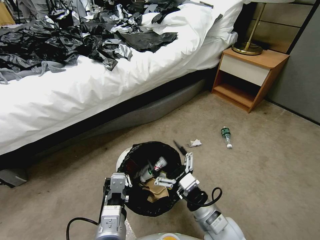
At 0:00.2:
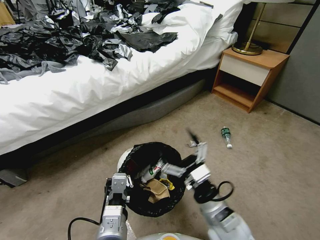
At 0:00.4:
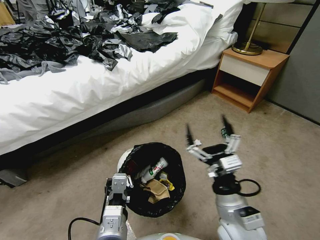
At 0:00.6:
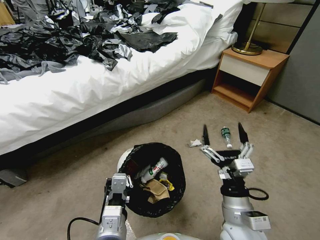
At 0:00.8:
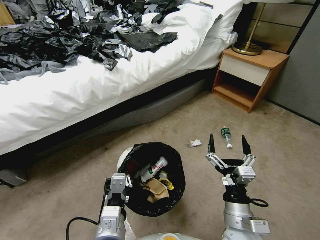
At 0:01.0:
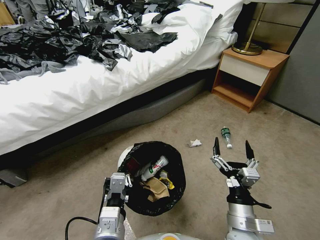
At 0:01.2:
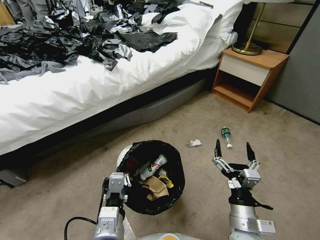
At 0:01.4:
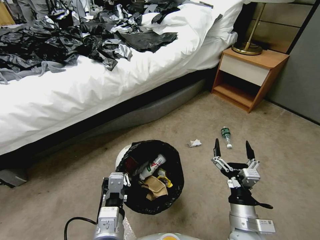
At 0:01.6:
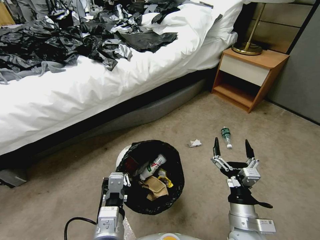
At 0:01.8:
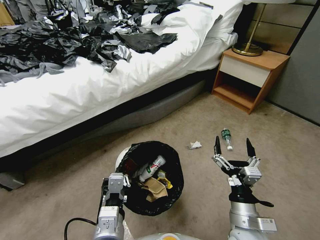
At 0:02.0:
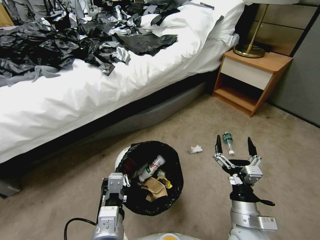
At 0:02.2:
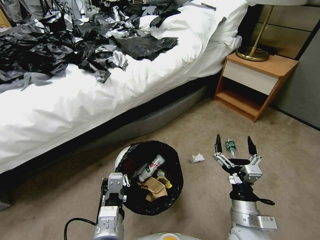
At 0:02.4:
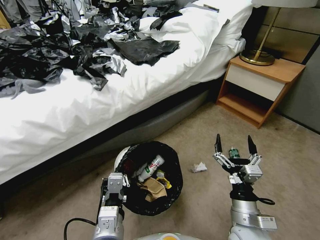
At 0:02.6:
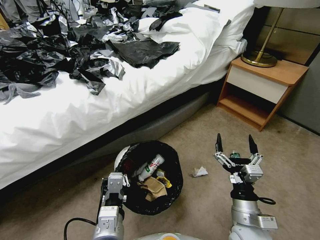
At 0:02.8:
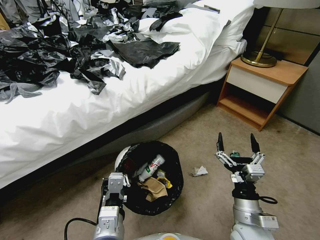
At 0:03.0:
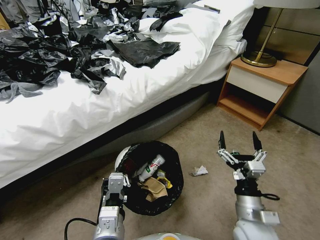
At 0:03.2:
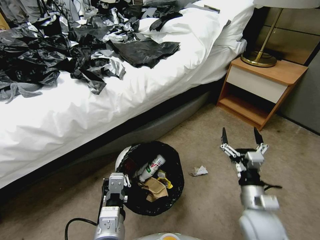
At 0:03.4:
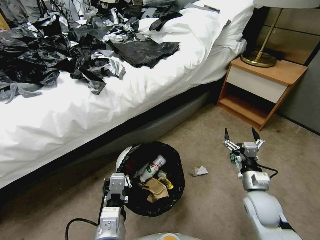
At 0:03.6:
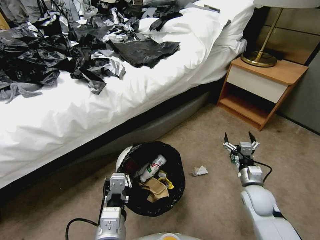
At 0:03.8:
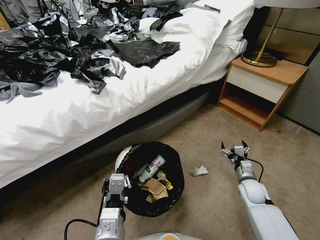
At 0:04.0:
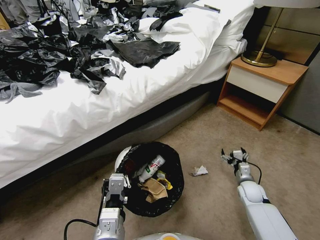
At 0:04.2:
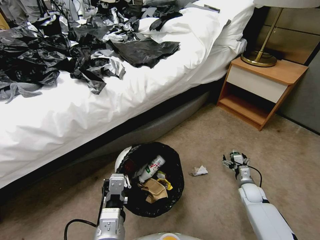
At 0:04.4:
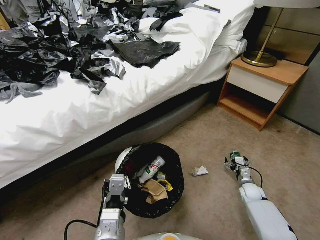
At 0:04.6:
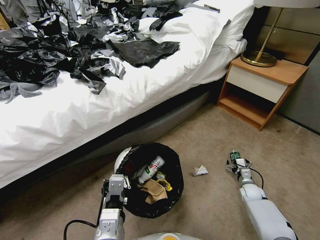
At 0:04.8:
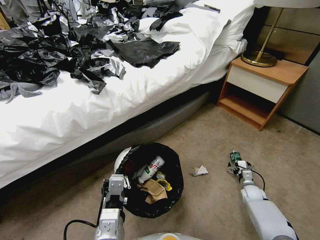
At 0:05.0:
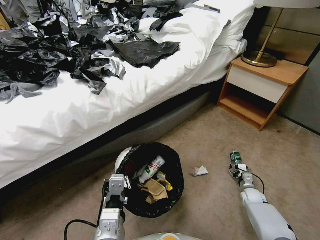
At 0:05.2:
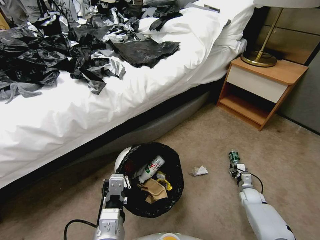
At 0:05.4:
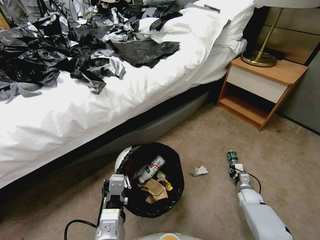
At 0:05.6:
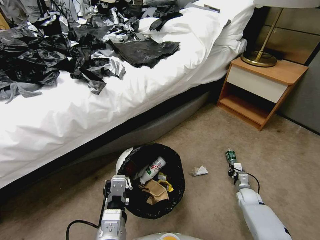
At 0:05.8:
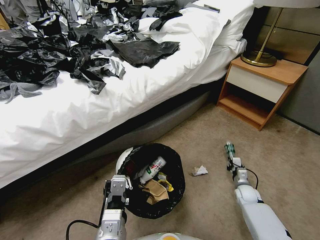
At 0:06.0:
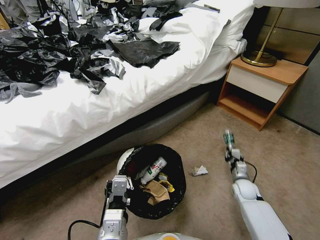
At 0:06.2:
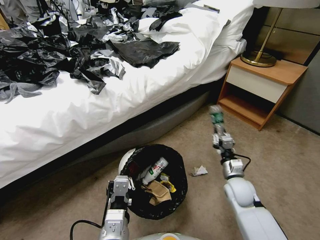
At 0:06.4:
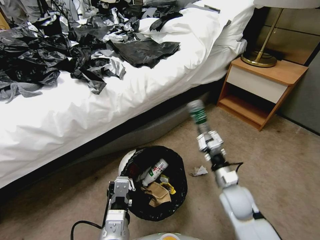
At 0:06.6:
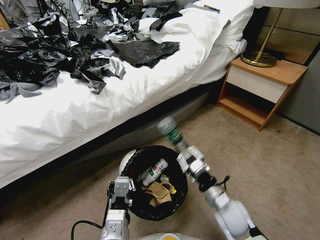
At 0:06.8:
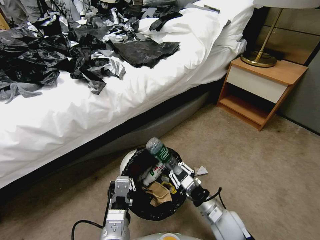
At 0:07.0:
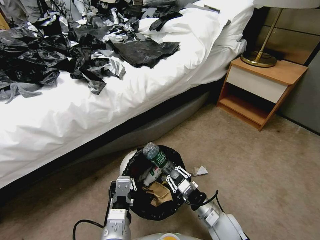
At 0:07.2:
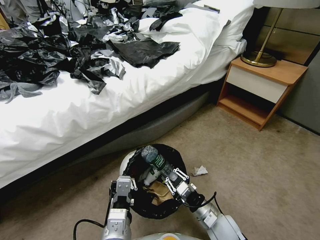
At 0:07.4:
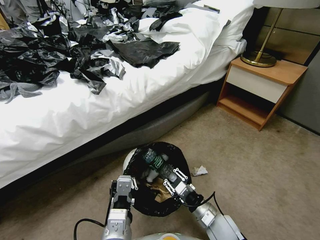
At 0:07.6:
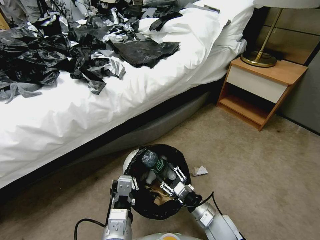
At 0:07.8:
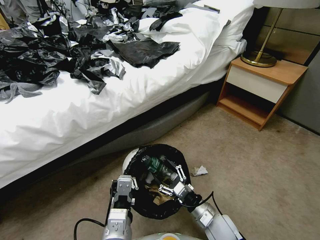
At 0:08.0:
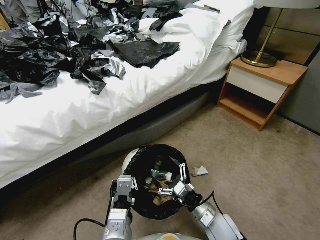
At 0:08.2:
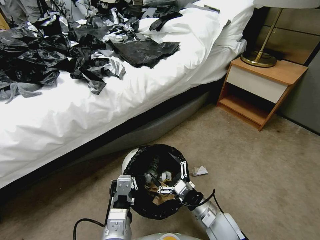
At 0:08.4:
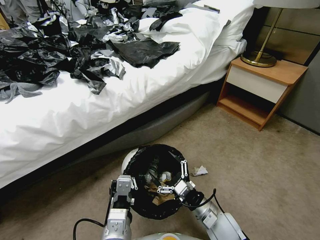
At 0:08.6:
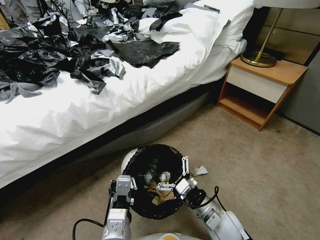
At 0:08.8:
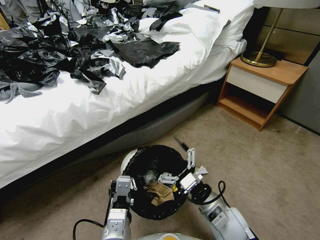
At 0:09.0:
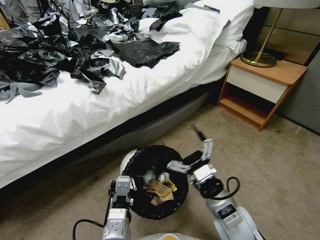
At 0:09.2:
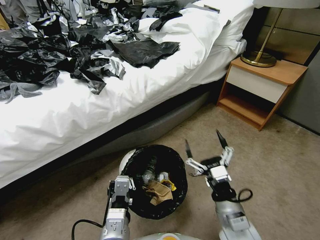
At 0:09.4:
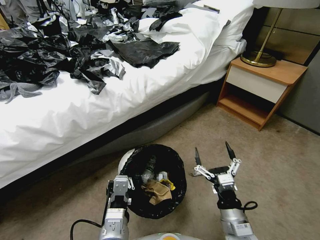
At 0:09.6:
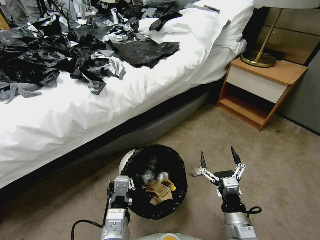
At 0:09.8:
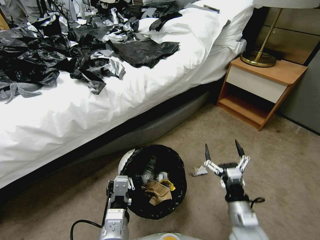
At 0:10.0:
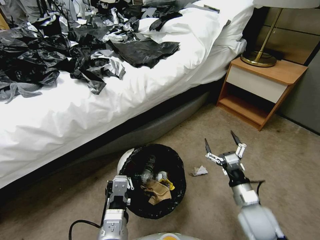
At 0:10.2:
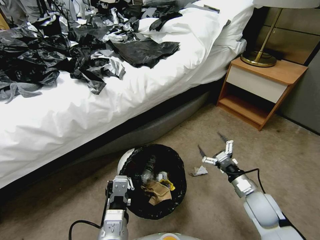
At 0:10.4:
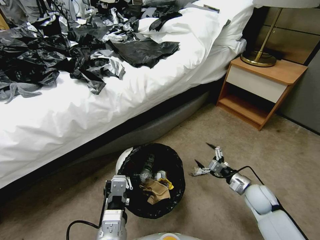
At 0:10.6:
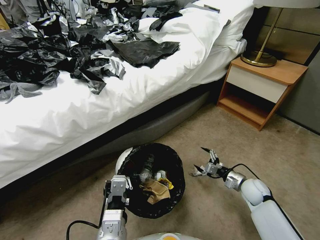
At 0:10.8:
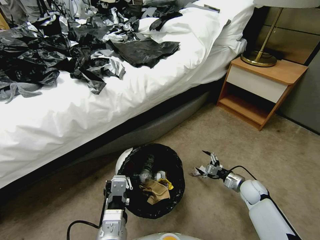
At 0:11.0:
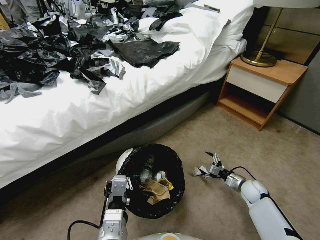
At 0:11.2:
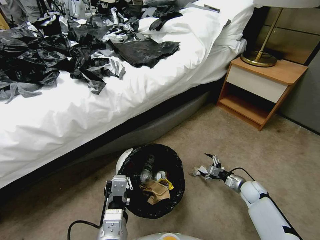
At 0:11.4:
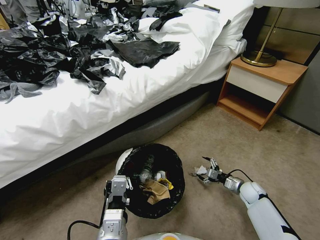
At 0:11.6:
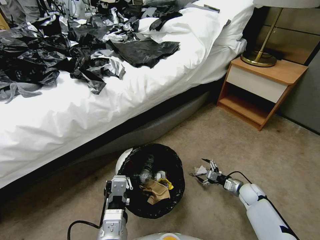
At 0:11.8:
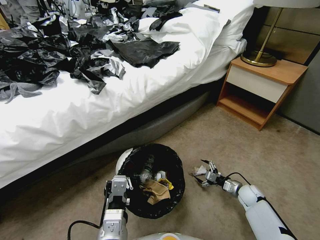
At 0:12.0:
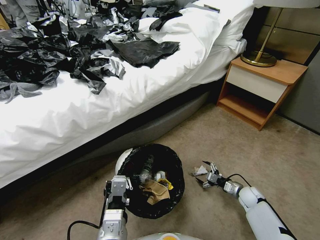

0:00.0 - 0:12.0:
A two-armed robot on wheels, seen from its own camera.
Task of the whole recording: Pick up the trash bin, then pick up the garbage from the floor and place it into the trash bin.
0:00.0 - 0:01.6: The right gripper is displaced to the right by approximately 5 cm, and moves about 10 cm upward and comes back.
0:03.0 - 0:04.4: The right gripper travels downward, forward and to the right by roughly 35 cm.
0:04.4 - 0:06.0: The right gripper moves upward and to the left, about 10 cm, and closes its fingers.
0:06.0 - 0:07.6: The right gripper heads backward and to the left, covering roughly 20 cm.
0:07.6 - 0:09.0: The right gripper goes some 15 cm upward, and opens.
0:09.0 - 0:10.4: The right gripper moves to the right, downward and forward, roughly 20 cm.
0:10.4 - 0:12.0: The right gripper heads downward, covering roughly 15 cm.

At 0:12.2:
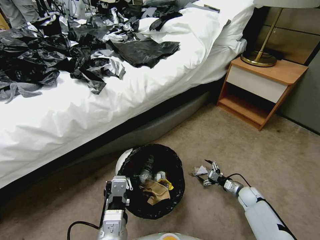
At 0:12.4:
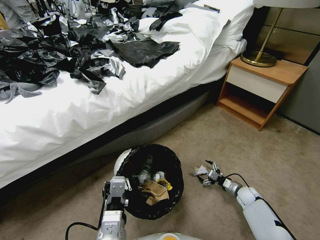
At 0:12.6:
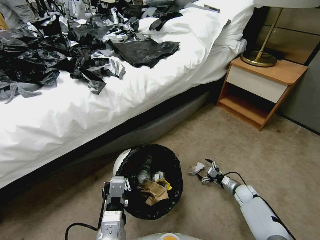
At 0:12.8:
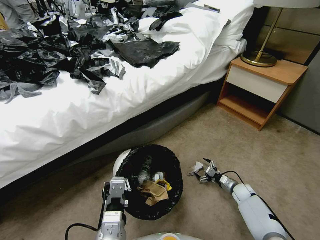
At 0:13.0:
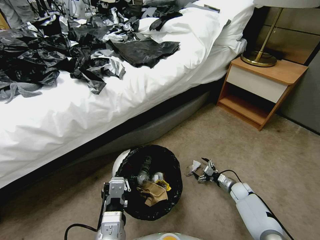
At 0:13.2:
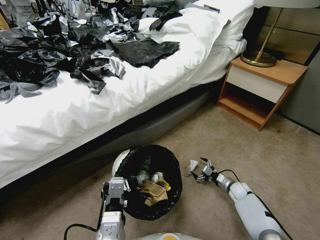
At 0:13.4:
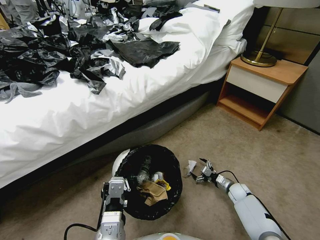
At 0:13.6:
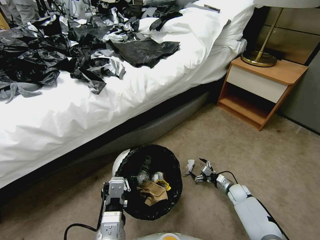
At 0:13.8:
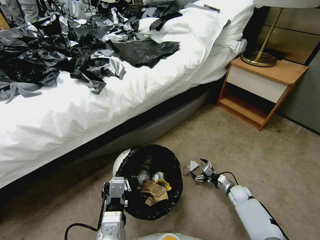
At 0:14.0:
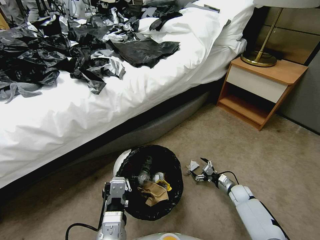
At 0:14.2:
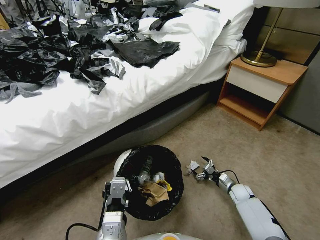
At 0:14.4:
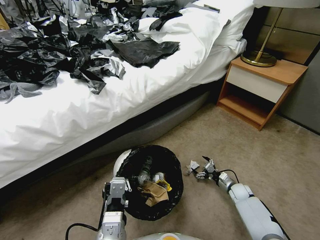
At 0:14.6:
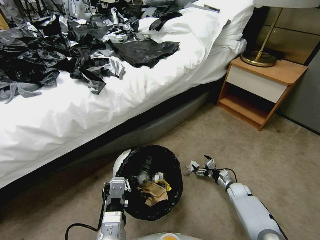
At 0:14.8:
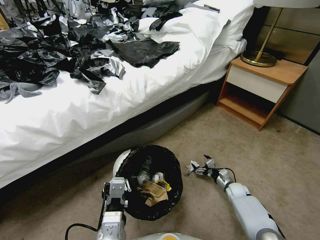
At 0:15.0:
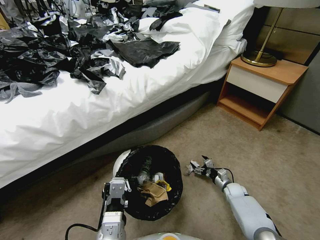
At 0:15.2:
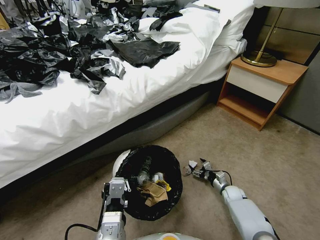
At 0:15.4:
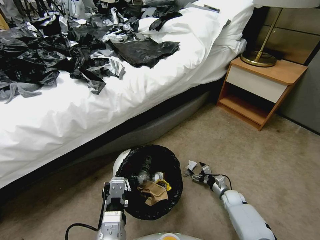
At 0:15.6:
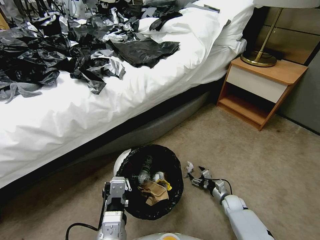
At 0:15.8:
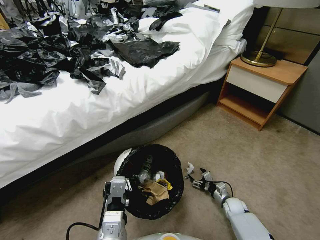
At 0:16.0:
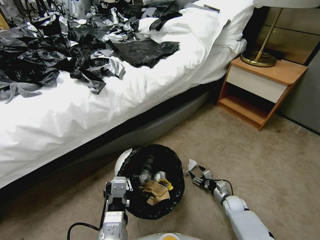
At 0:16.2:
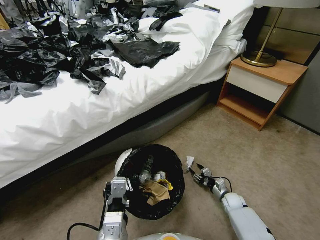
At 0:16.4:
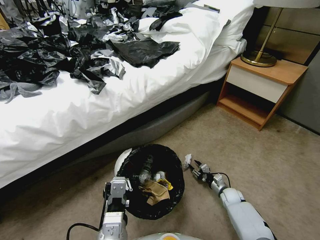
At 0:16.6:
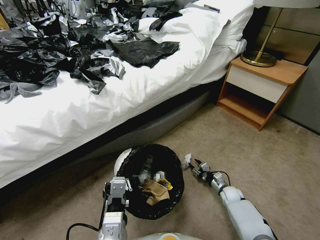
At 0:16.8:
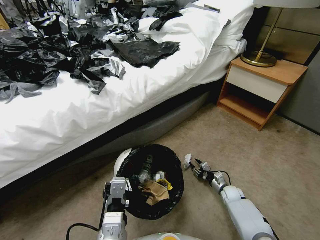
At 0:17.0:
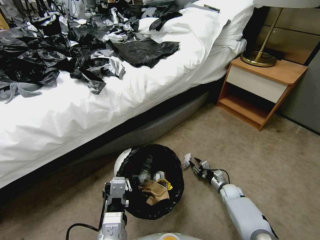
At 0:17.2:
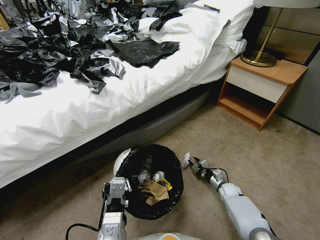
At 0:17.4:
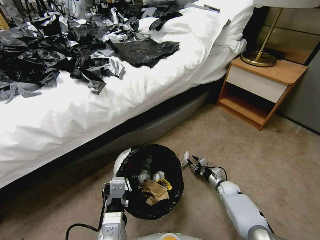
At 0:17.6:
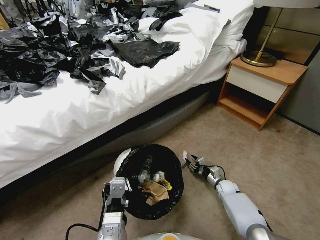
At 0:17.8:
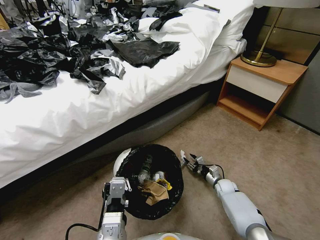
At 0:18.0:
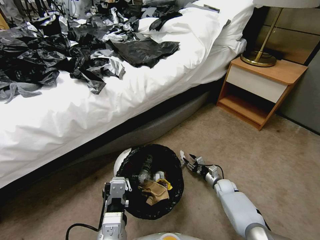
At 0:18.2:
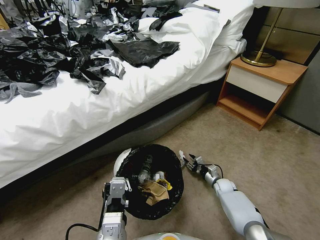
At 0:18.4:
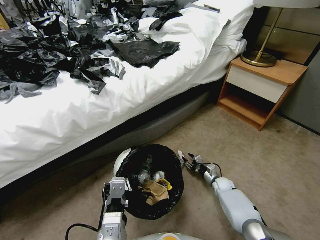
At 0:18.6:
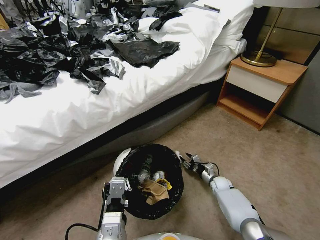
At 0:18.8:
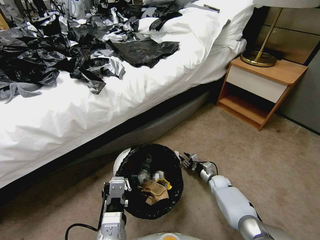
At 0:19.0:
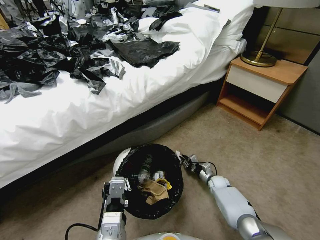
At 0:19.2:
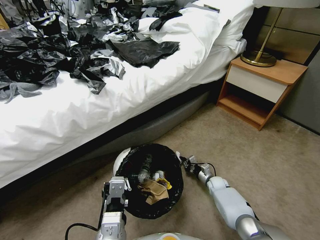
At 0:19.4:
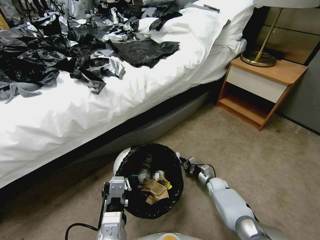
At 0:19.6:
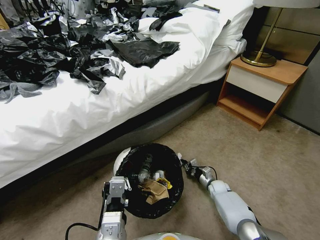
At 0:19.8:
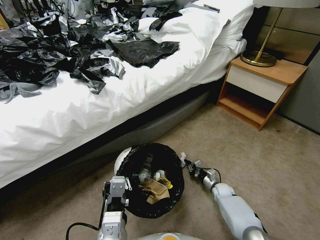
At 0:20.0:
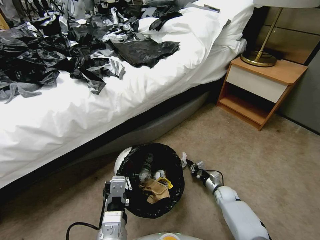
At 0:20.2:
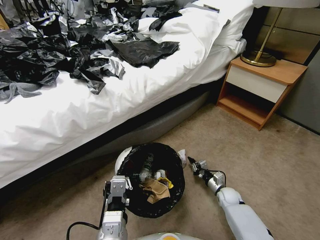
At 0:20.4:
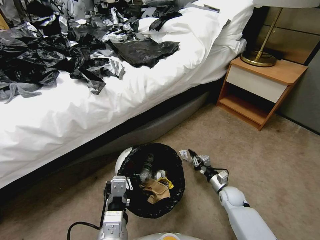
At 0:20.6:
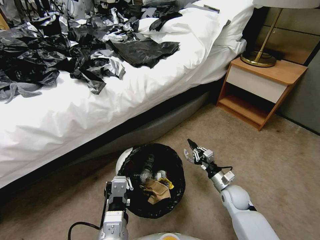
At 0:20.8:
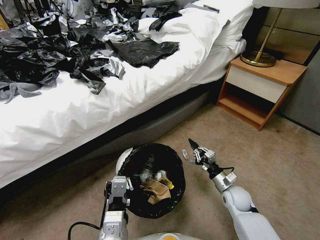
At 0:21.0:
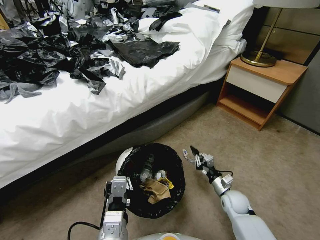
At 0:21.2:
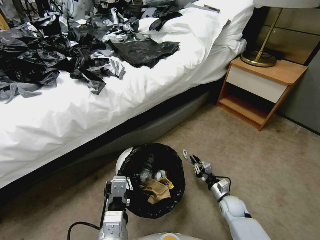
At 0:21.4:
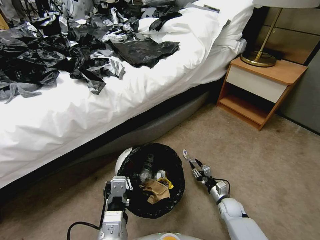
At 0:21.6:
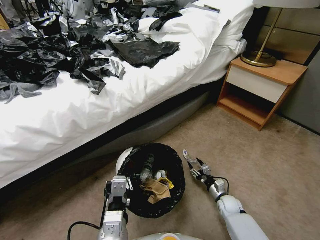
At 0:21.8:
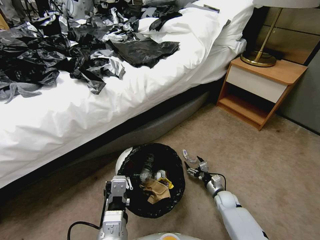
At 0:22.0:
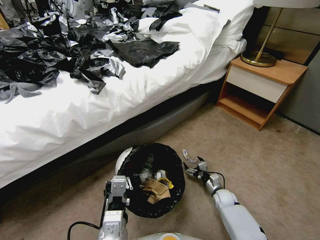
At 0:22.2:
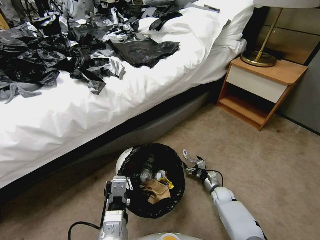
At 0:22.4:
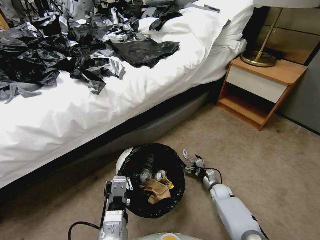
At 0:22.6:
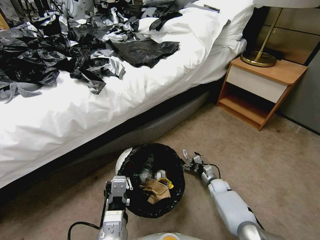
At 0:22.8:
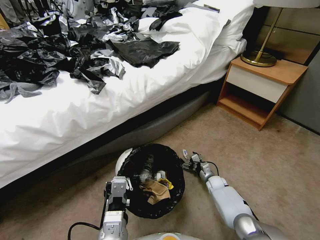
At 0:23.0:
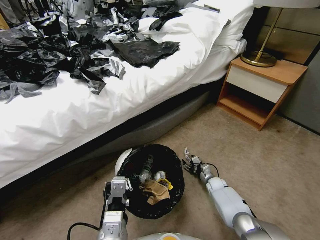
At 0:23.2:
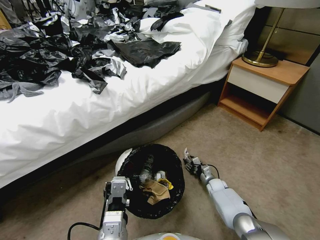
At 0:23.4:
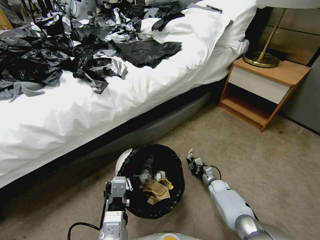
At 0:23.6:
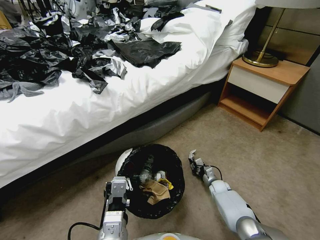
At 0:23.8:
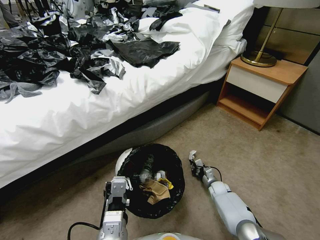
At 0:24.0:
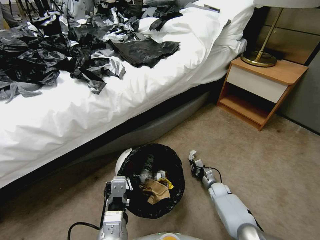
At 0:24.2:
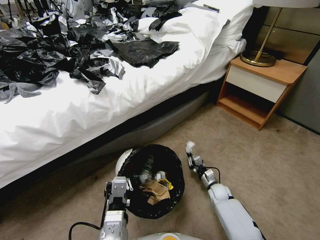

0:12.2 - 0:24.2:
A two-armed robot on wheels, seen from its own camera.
Task of the whole recording: Pick up the trash bin, then pick up the garbage from the floor and place it into the trash bin.
0:12.2 - 0:13.8: The grippers make only small movements.
0:13.8 - 0:15.2: The grippers stay close to where they were, moving slightly.
0:15.2 - 0:16.6: The right gripper closes up.
0:16.6 - 0:18.2: The grippers stay close to where they were, moving slightly.
0:18.2 - 0:19.8: The right gripper closes its fingers.
0:19.8 - 0:21.2: The right gripper moves backward, about 10 cm, and moves approximately 15 cm upward and comes back.
0:21.2 - 0:22.6: The right gripper heads forward, covering some 10 cm, and opens its fingers.
0:22.6 - 0:24.2: The right gripper closes up.
